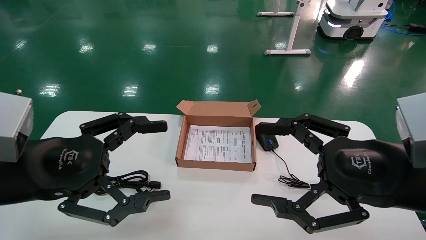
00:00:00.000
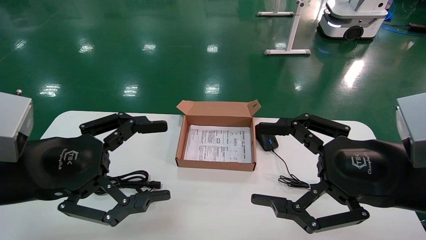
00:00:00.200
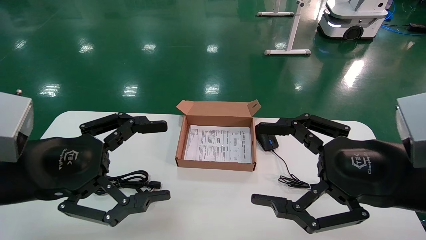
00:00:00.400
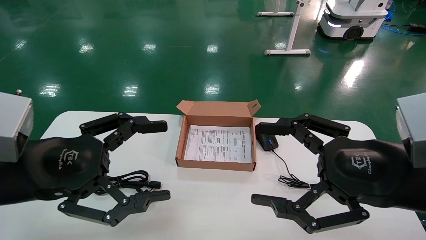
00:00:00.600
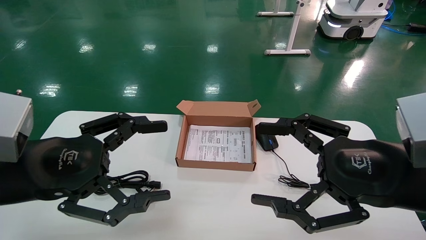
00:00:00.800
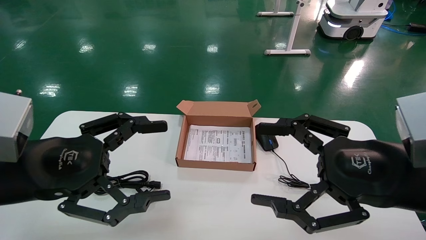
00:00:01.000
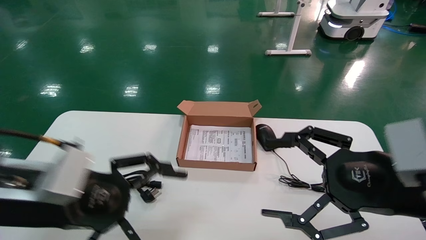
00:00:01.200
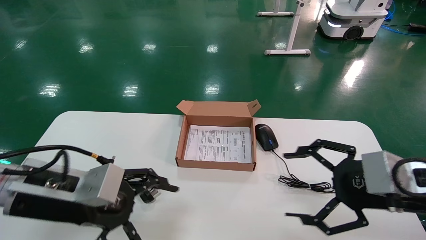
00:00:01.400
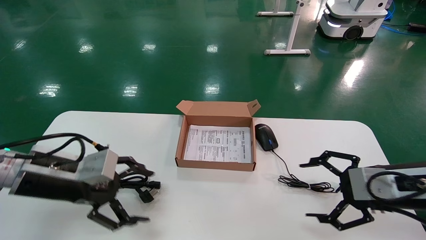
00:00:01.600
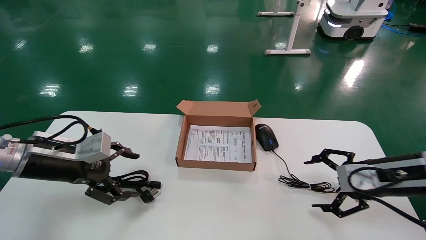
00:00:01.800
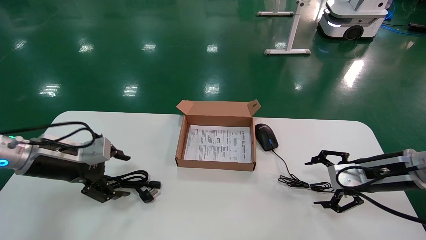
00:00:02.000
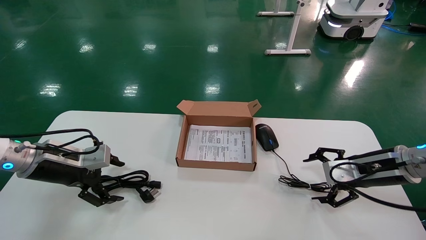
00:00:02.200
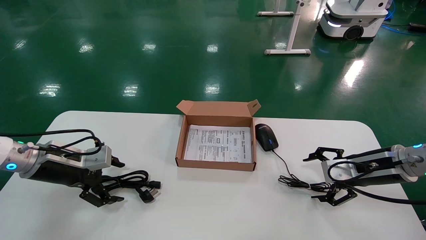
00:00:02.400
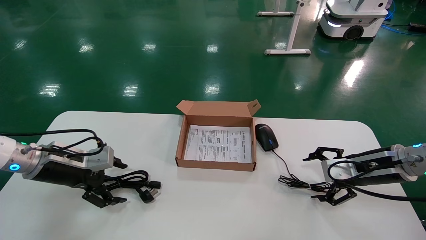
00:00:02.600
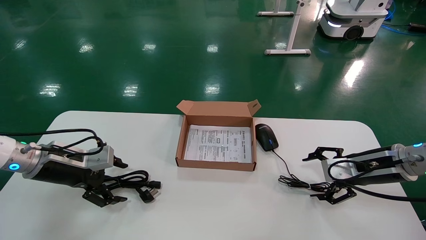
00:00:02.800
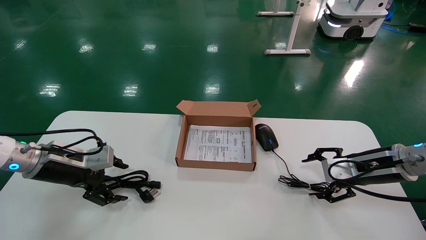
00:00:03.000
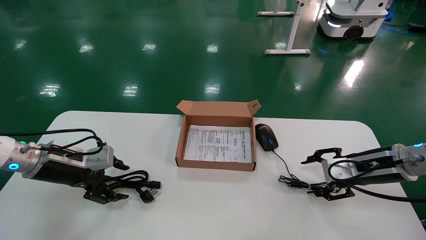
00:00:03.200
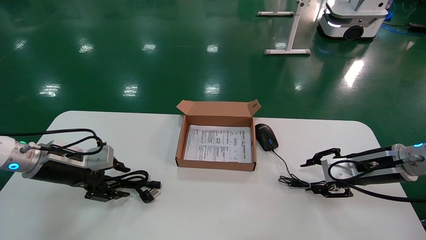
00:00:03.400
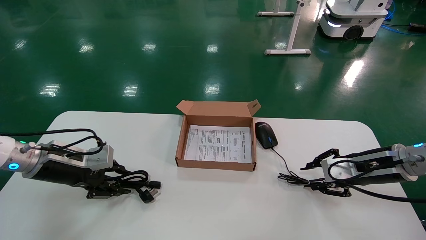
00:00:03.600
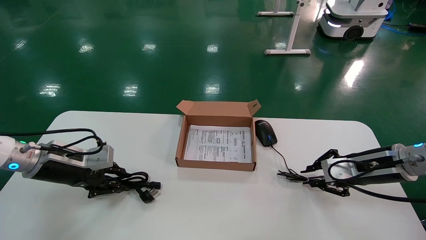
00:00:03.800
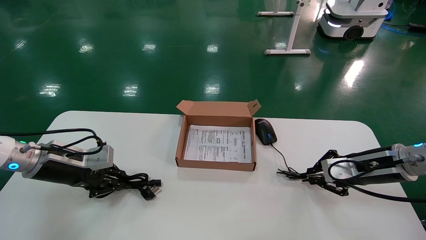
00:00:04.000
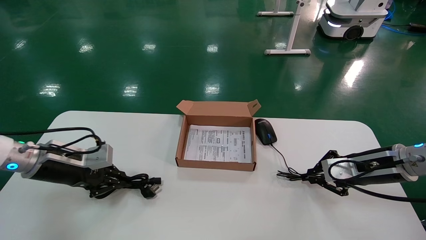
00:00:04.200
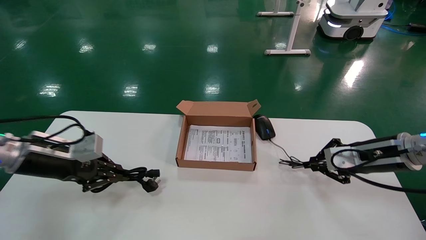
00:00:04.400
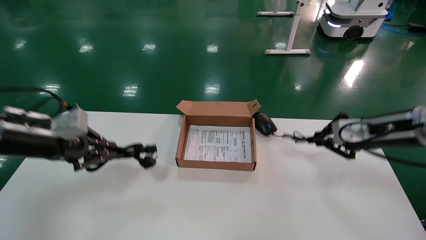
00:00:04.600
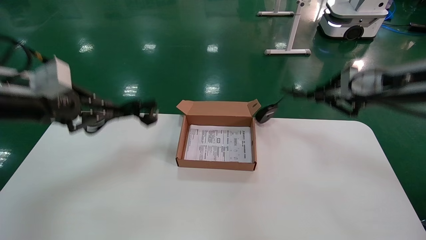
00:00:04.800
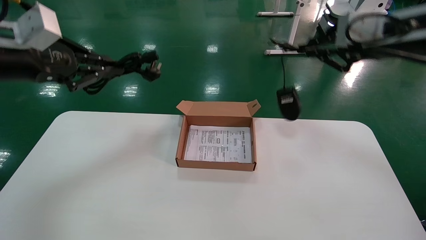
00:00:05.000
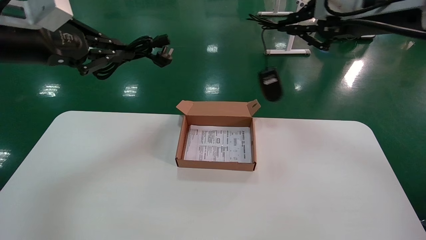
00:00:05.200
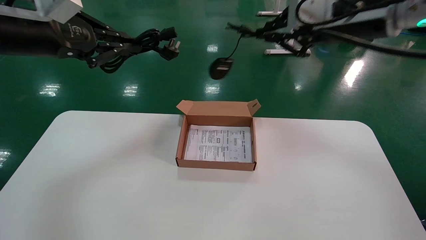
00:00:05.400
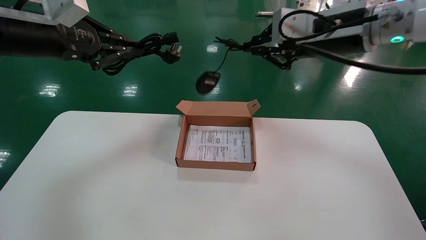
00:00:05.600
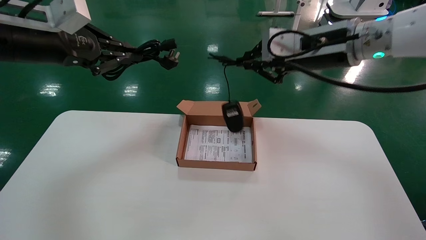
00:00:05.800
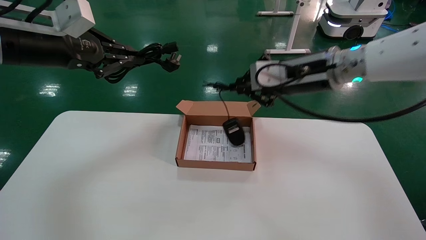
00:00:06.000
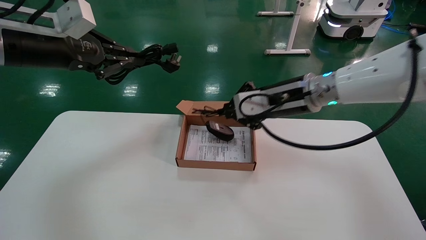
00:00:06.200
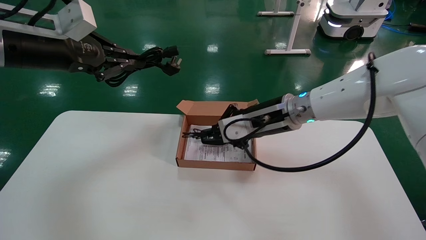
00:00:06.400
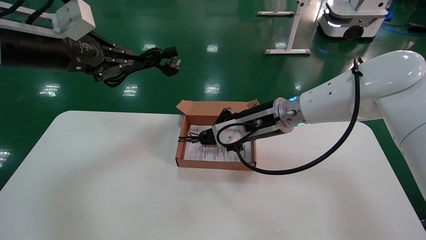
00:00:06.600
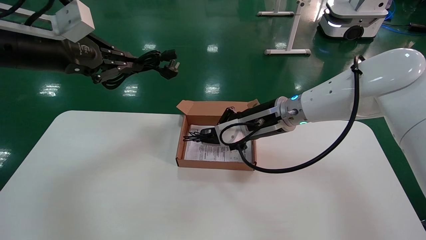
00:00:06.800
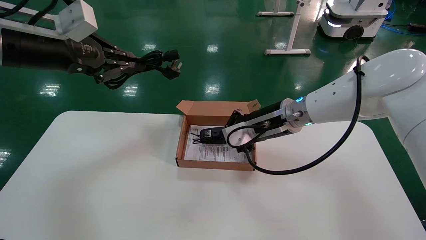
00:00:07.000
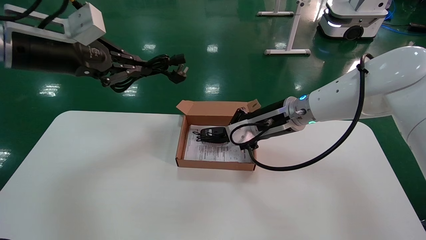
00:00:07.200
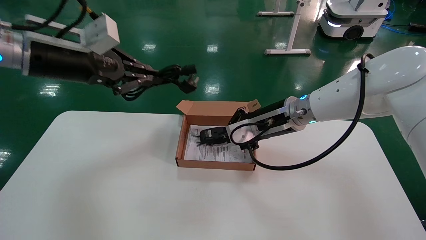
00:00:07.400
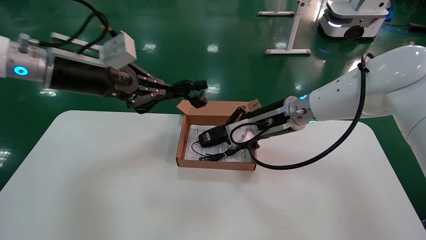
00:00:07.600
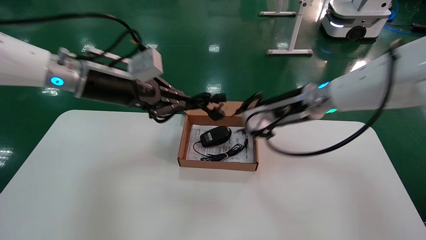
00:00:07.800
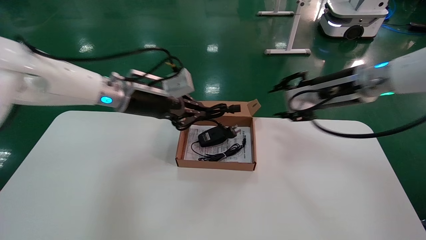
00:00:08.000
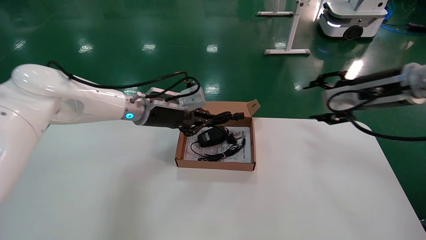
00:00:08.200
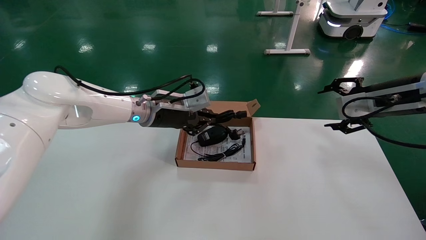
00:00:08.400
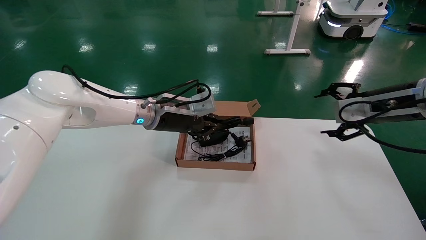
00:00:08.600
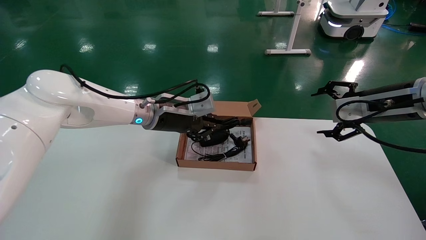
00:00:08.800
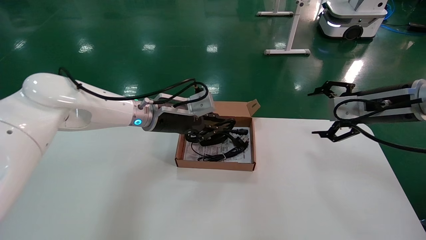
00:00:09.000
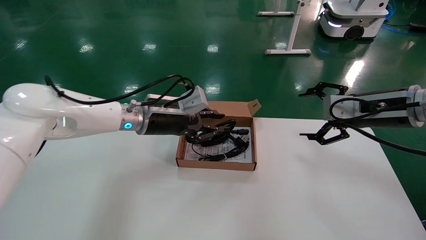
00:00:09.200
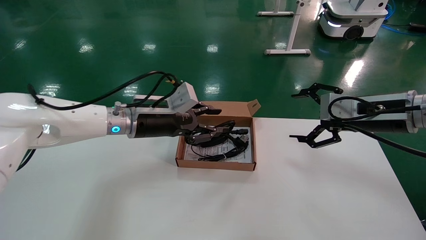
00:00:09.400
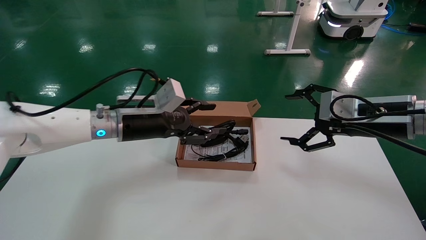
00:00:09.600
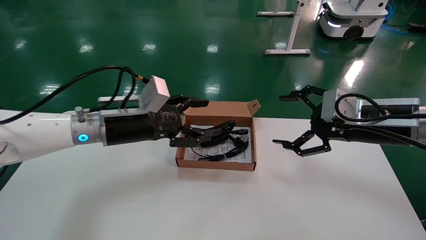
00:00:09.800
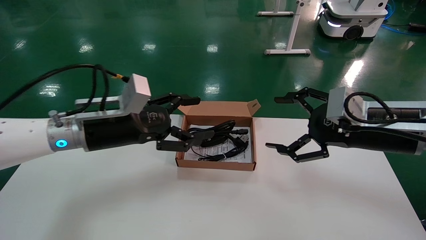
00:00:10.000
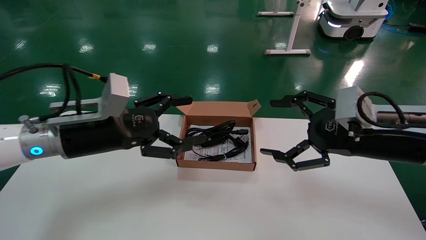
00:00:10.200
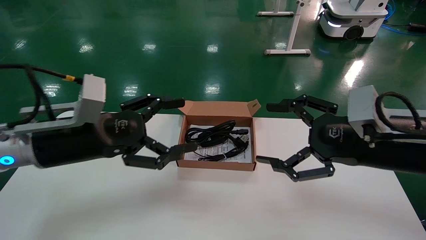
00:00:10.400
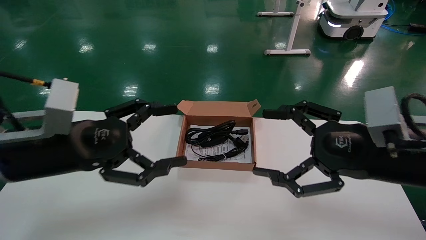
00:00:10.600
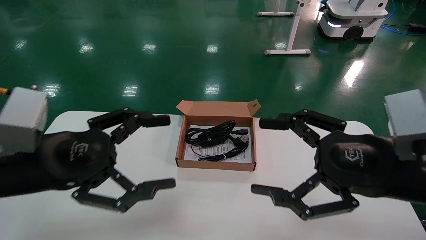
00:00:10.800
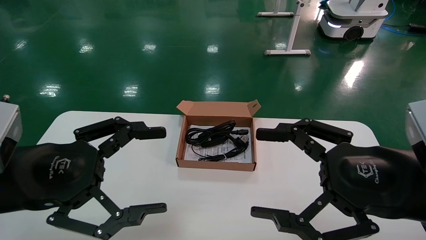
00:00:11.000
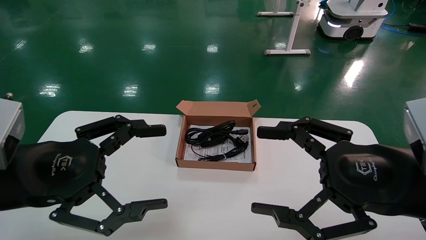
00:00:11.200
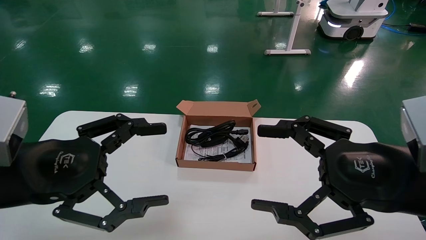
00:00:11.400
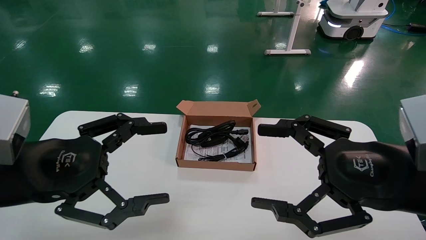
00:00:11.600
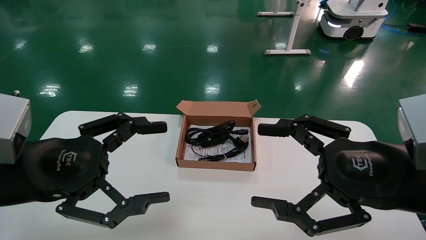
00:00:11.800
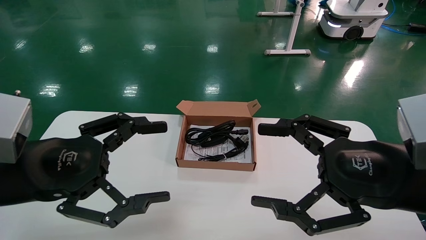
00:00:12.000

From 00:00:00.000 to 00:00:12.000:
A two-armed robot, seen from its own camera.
Step, from 00:00:01.400 to 00:00:04.400: Grab and lift both the mouse and power cord from the accessory packaging area at the same time.
Step, from 00:00:04.600 to 00:00:09.400: Place the mouse and power cord into the box.
From 00:00:00.000 to 00:00:01.600: The right gripper moves forward, to the right and downward, roughly 10 cm, while the left gripper travels forward and downward by approximately 10 cm.
From 00:00:01.600 to 00:00:03.000: The left gripper is displaced forward and to the left by some 10 cm. Meanwhile the right gripper heads forward, covering some 10 cm.
From 00:00:03.000 to 00:00:04.400: The left gripper changes place by approximately 5 cm, and closes up. The right gripper closes.
From 00:00:04.400 to 00:00:06.000: The left gripper shifts roughly 20 cm upward. The right gripper heads to the left and upward, covering about 20 cm.
From 00:00:06.000 to 00:00:07.600: The left gripper moves to the right, about 5 cm; the right gripper heads downward, covering some 10 cm.
From 00:00:07.600 to 00:00:09.000: The right gripper is displaced to the right by approximately 20 cm, and opens; the left gripper goes roughly 20 cm downward, to the right and forward.
From 00:00:09.000 to 00:00:10.400: Both grippers move backward and to the left, about 15 cm. The left gripper opens its fingers.
From 00:00:10.400 to 00:00:12.000: The two grippers go roughly 10 cm backward.

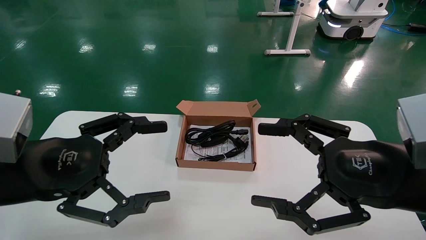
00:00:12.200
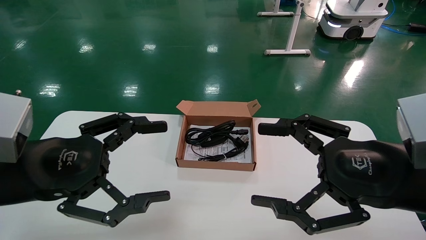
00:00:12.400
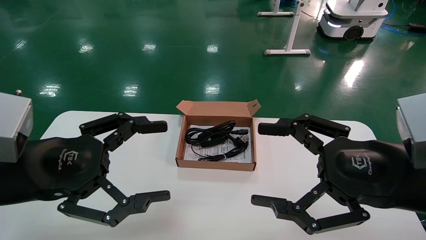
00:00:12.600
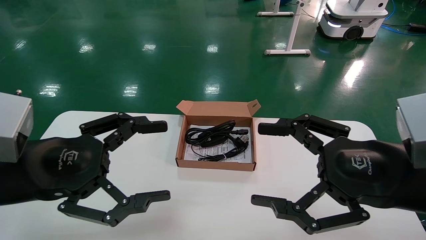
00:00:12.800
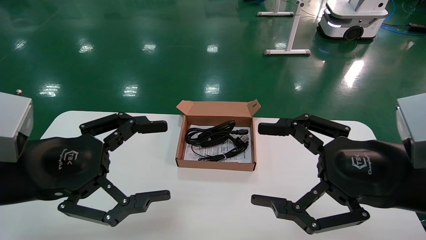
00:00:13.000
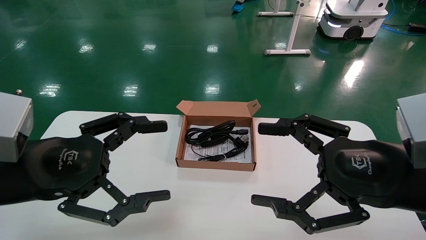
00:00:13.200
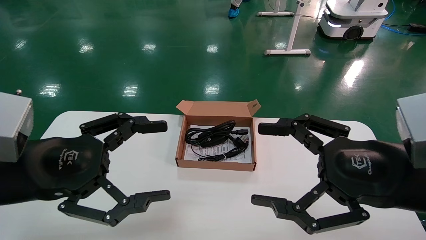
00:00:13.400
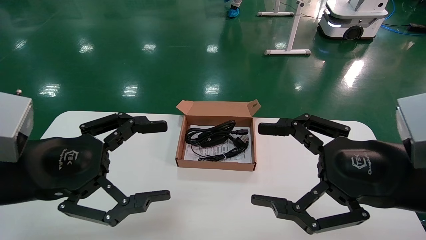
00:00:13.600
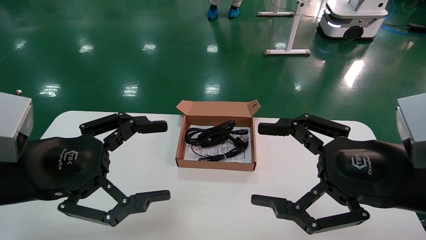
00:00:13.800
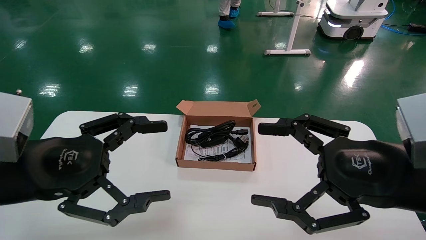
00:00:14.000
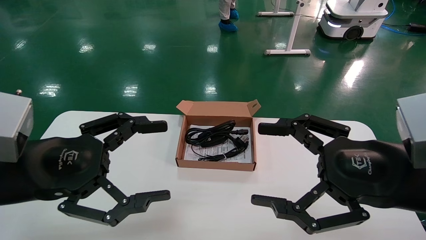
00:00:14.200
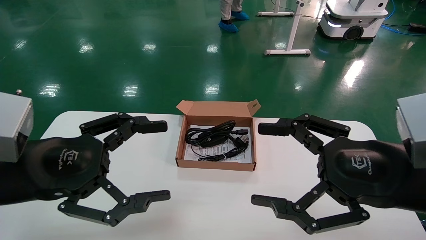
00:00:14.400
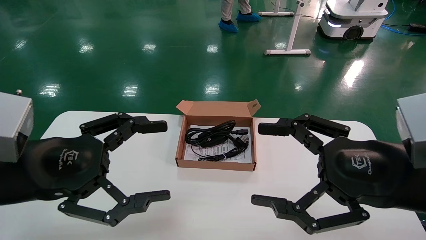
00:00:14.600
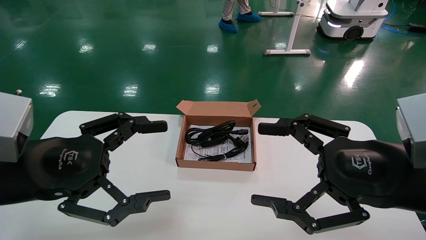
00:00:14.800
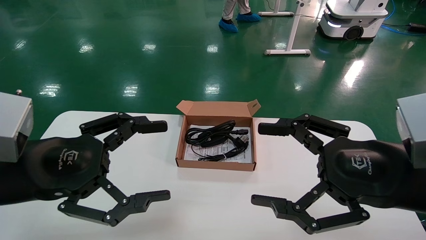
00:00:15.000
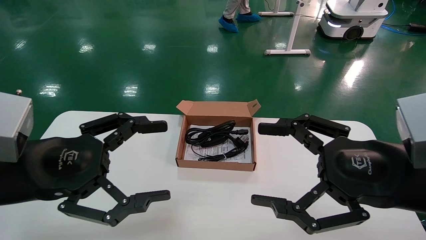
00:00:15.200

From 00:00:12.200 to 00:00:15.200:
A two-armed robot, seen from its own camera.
From 00:00:12.200 to 00:00:15.200: The two grippers keep their place.
